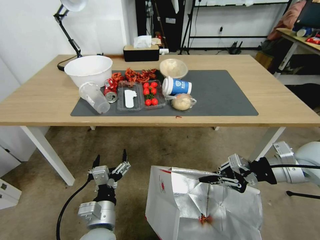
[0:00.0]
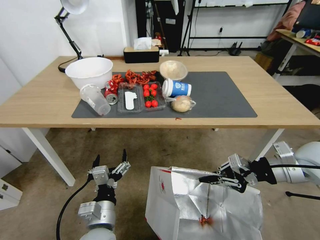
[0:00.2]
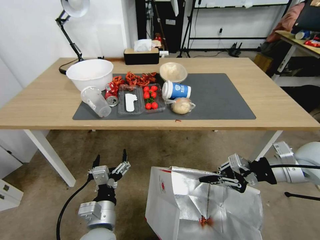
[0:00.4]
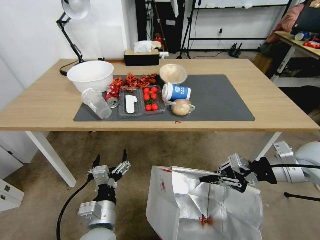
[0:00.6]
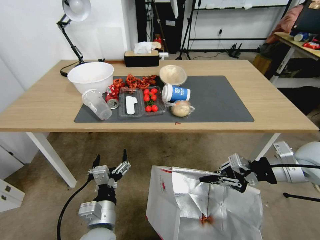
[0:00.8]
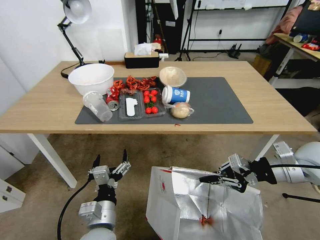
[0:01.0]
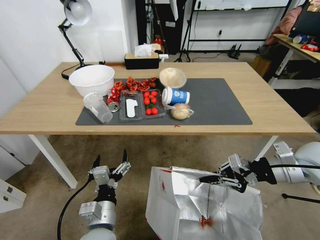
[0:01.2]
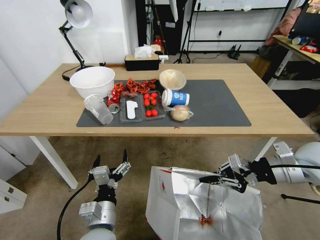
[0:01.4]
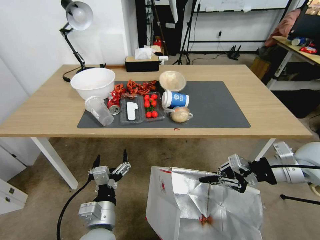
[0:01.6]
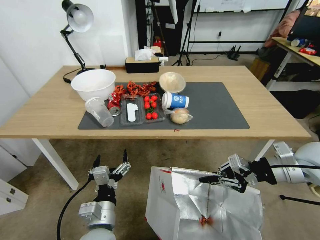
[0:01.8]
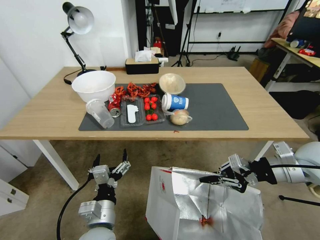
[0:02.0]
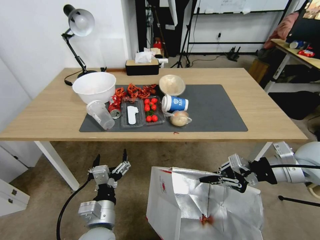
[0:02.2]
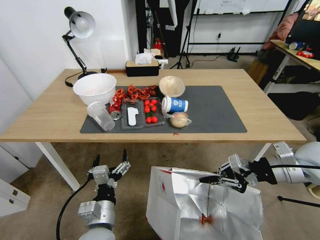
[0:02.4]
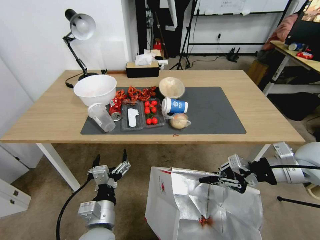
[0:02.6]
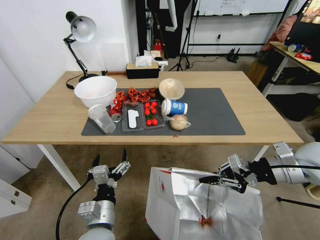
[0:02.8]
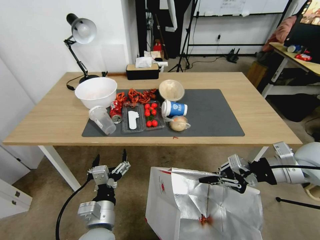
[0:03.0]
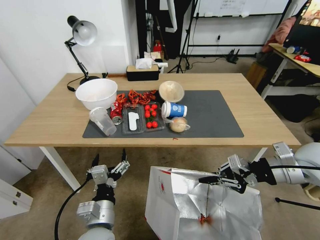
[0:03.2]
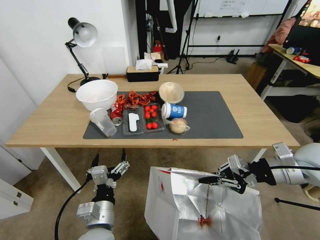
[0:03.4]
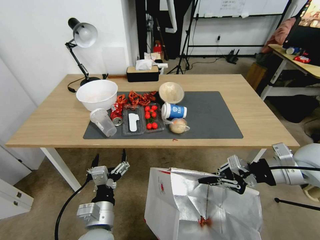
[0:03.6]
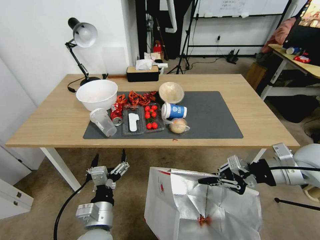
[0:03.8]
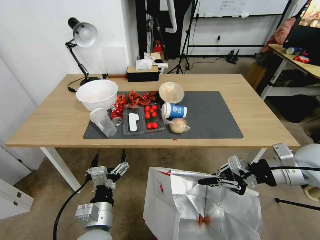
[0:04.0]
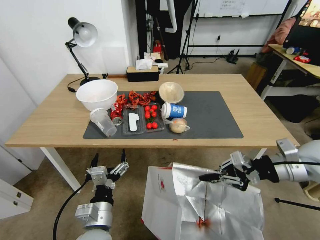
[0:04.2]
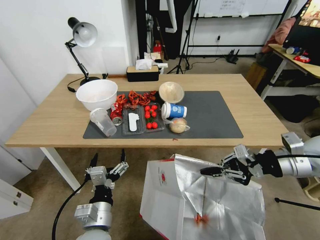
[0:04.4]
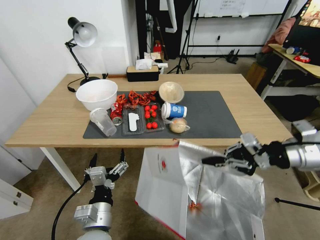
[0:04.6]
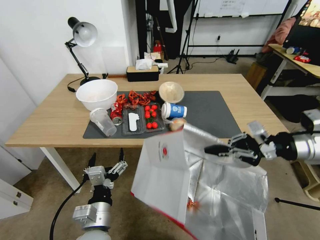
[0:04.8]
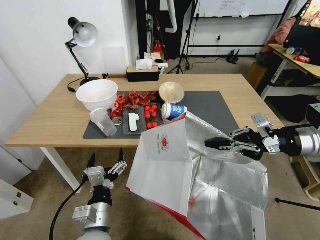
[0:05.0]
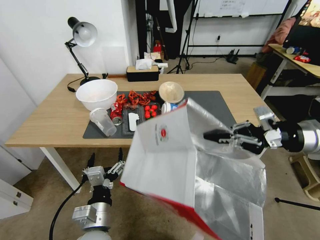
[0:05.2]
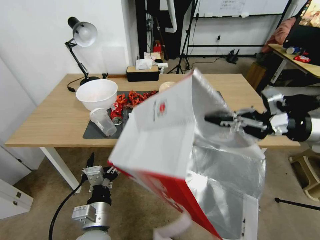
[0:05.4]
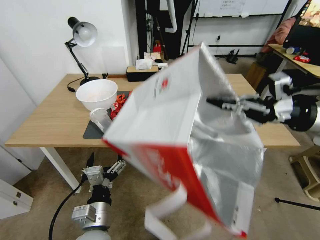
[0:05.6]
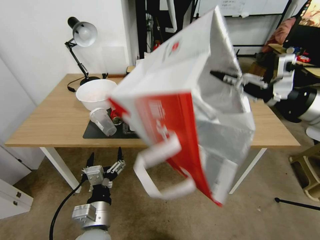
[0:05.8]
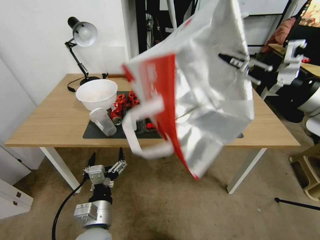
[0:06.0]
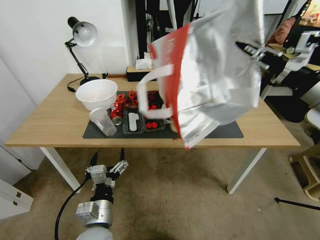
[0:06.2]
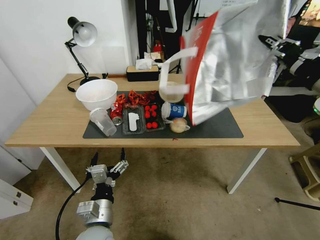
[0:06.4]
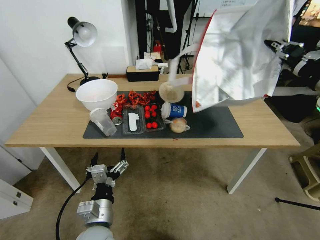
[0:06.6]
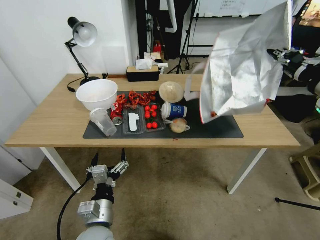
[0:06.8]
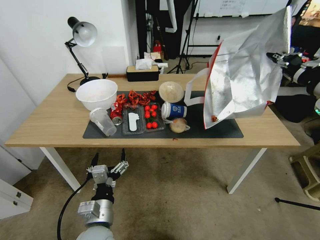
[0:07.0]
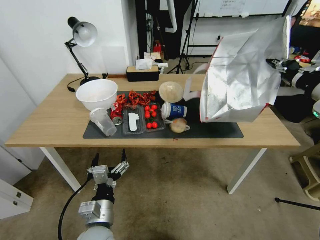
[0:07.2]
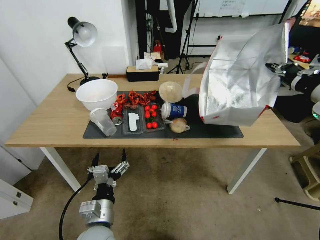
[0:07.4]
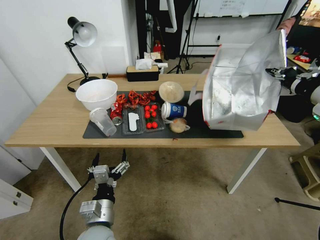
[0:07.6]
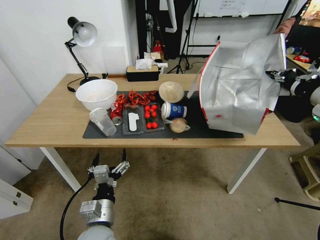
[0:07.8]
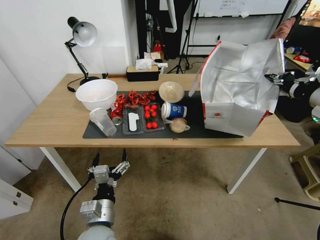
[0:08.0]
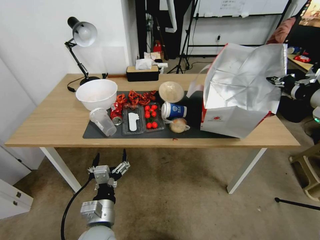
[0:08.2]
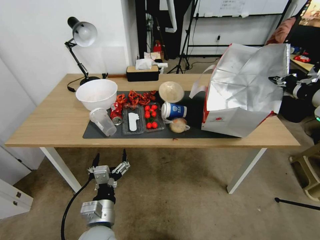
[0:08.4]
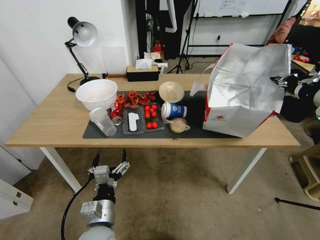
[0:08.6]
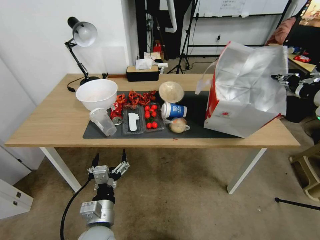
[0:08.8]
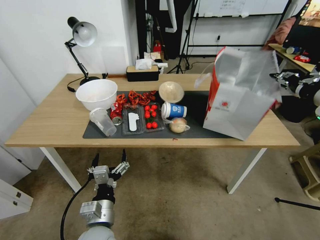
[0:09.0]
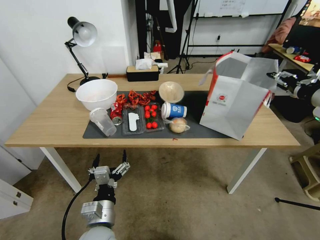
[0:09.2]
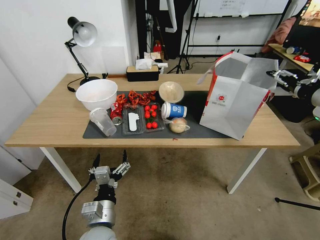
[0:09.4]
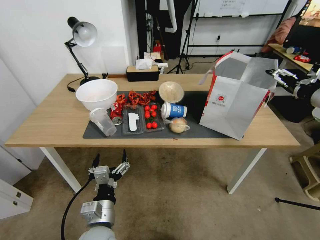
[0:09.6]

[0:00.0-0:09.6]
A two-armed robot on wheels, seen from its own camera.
Task of the whole recording: Pick up the food delivery bag from the floor and place it on the table.
0:03.2 to 0:04.8: The right gripper goes about 5 cm upward.
0:04.8 to 0:06.4: The right gripper shifts some 10 cm upward.
0:06.4 to 0:08.0: The right gripper shifts by approximately 5 cm.
0:08.0 to 0:09.6: The right gripper opens.

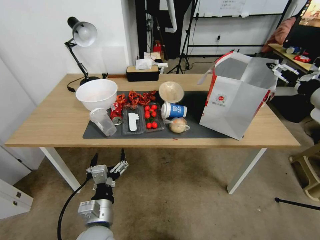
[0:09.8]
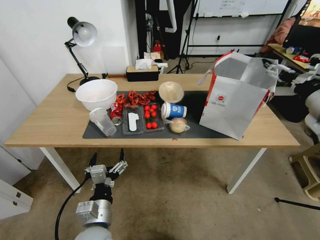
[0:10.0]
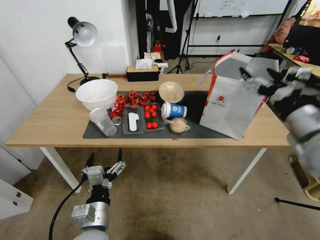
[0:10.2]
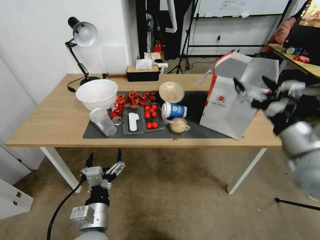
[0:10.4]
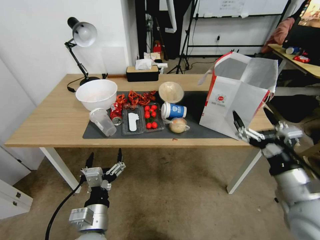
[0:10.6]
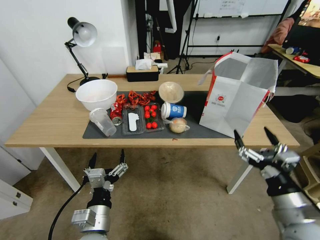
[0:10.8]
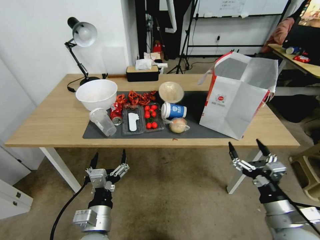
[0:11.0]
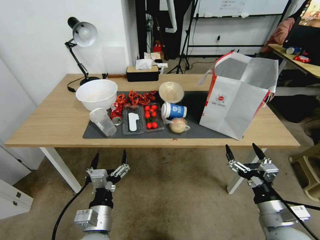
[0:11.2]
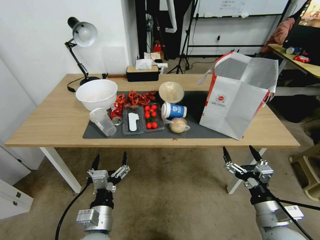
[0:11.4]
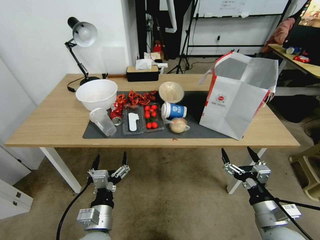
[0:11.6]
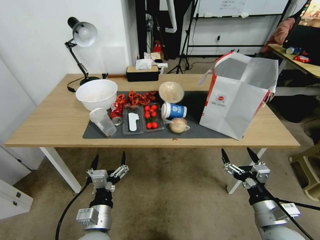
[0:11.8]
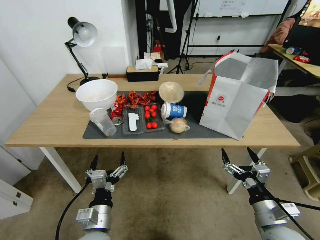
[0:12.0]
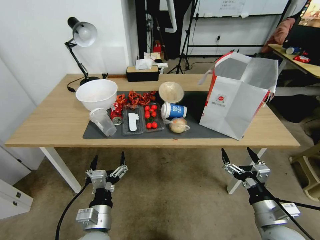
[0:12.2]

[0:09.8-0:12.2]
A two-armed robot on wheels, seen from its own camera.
Task of the whole recording: Pick up the food delivery bag from the floor and place it on the table.
0:09.8 to 0:11.0: The right gripper is displaced downward and backward by about 35 cm.
0:11.0 to 0:12.2: The grippers make only small movements.
